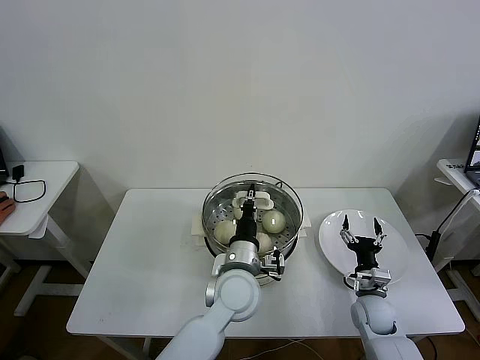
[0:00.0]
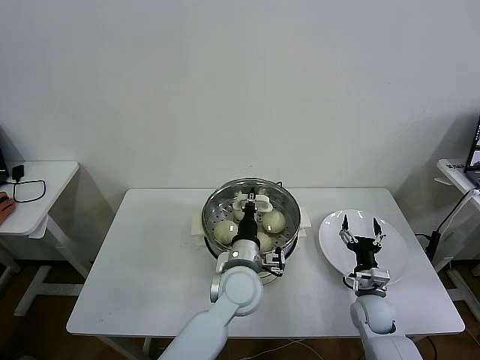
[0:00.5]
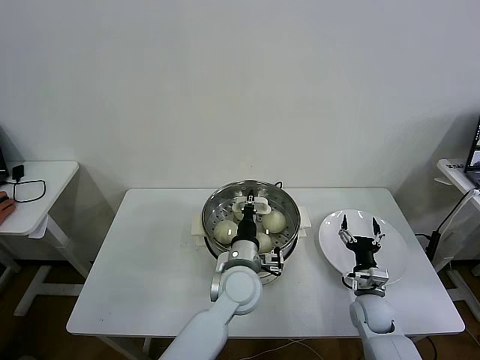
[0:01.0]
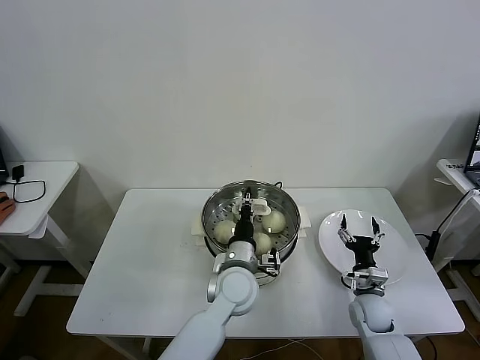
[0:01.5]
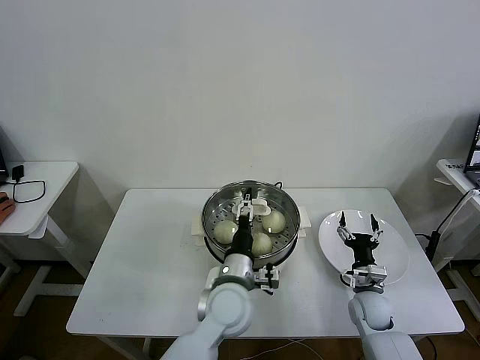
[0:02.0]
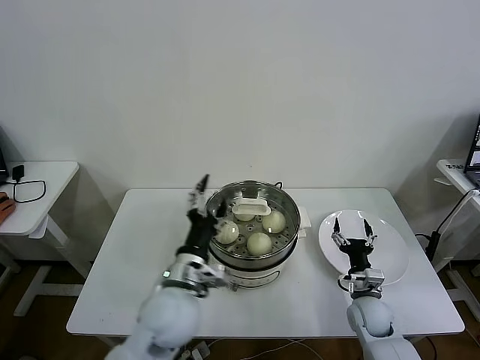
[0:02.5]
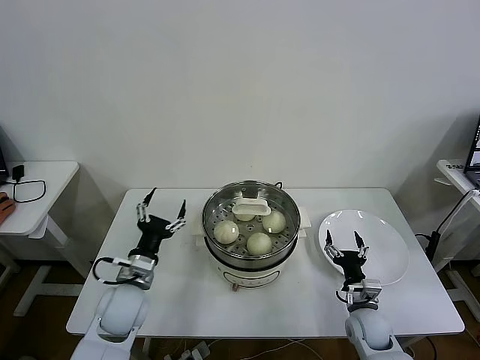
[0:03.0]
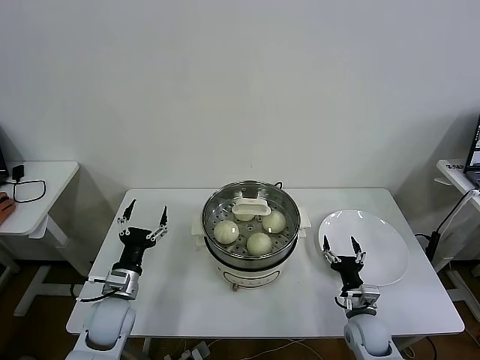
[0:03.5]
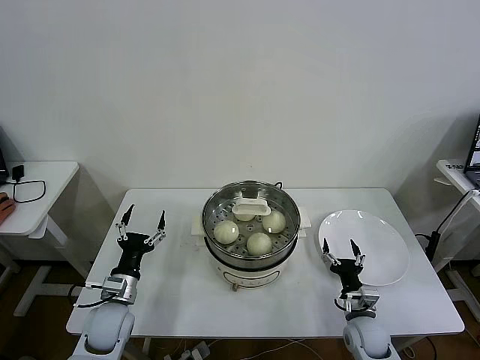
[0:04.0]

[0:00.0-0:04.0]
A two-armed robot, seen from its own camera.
Task of the whole recording: take steamed baozi put them in steamer then cover it.
0:00.0 to 0:02.0: The left gripper opens up.
0:02.0 to 0:04.0: The right gripper goes roughly 5 cm backward, while the left gripper goes approximately 25 cm to the left.

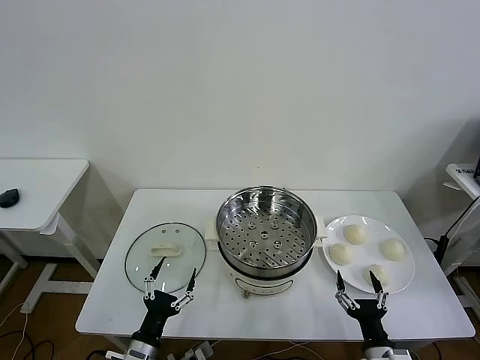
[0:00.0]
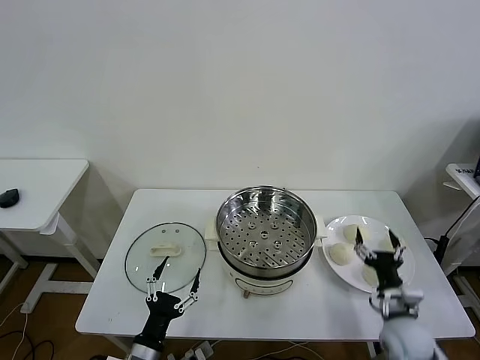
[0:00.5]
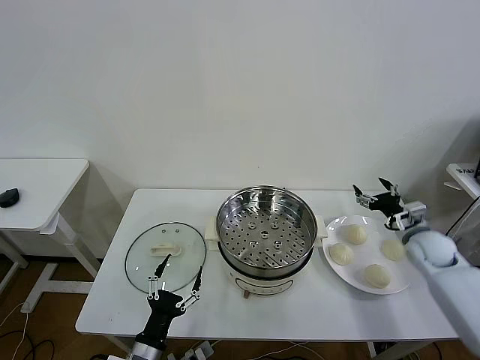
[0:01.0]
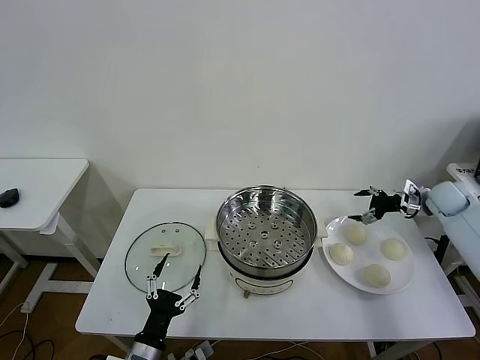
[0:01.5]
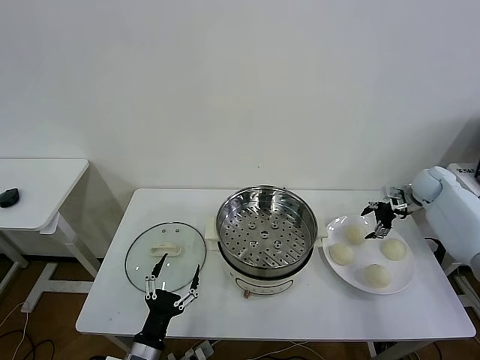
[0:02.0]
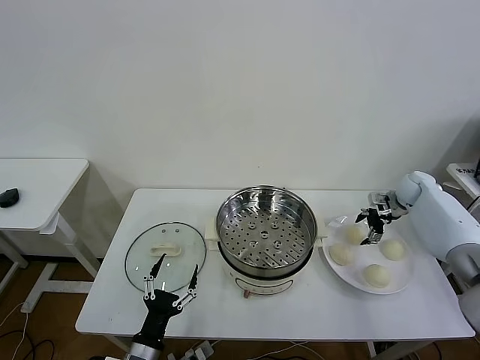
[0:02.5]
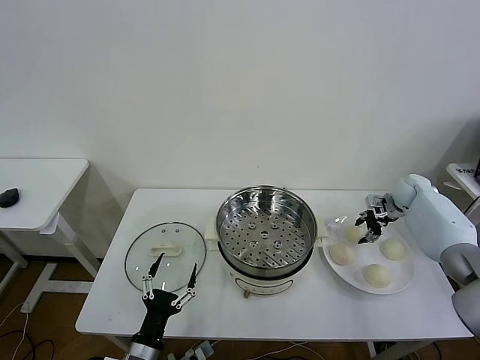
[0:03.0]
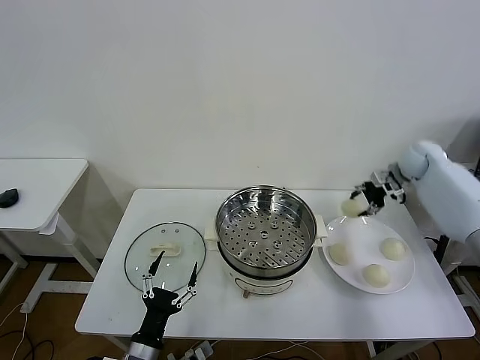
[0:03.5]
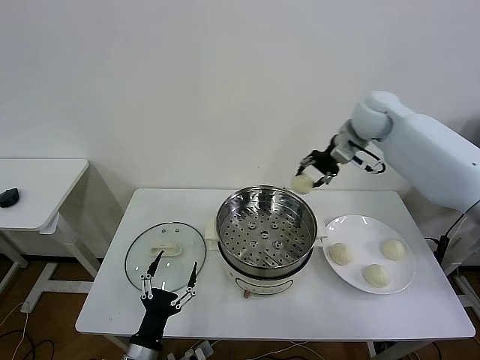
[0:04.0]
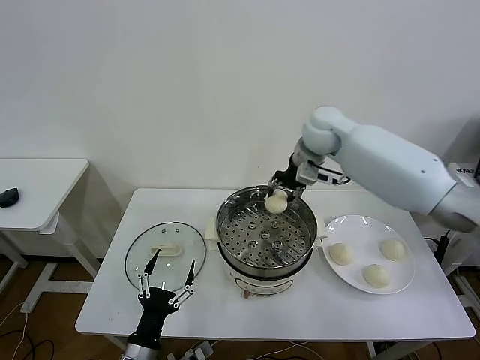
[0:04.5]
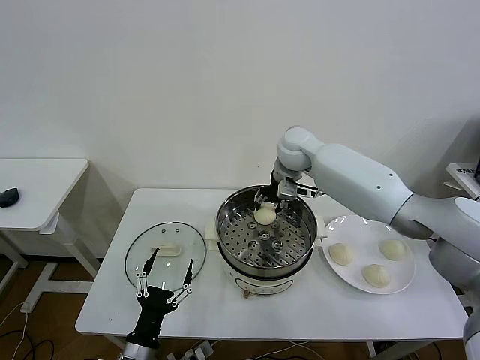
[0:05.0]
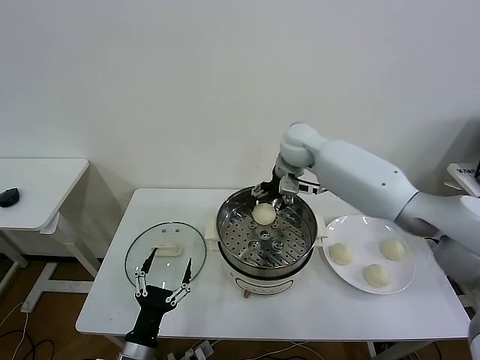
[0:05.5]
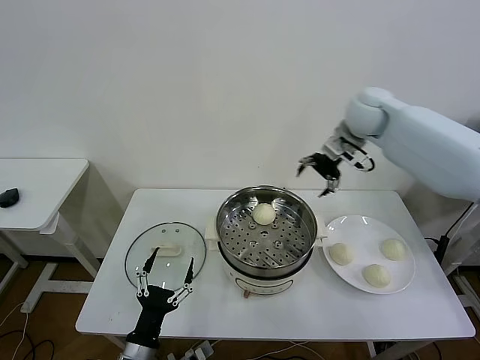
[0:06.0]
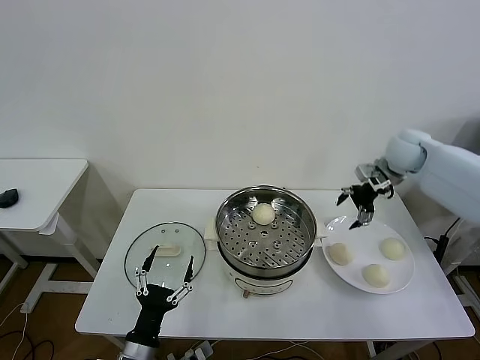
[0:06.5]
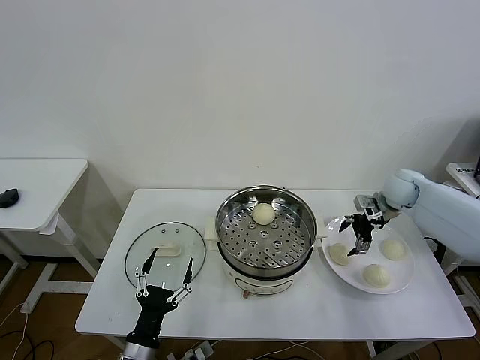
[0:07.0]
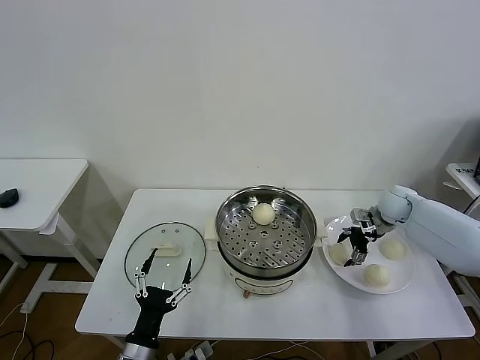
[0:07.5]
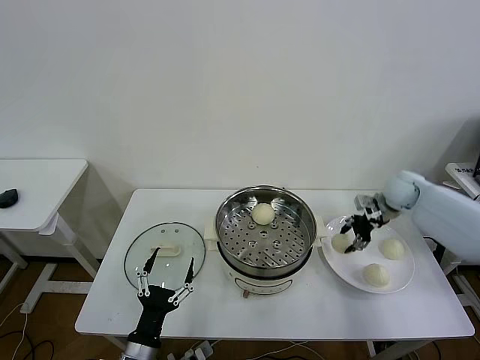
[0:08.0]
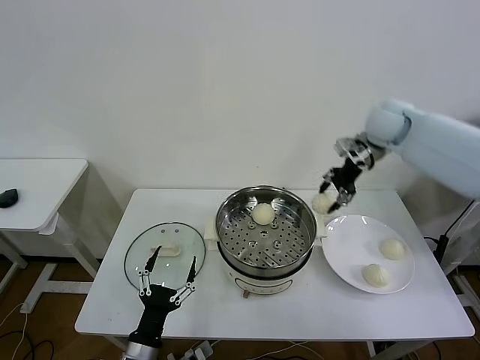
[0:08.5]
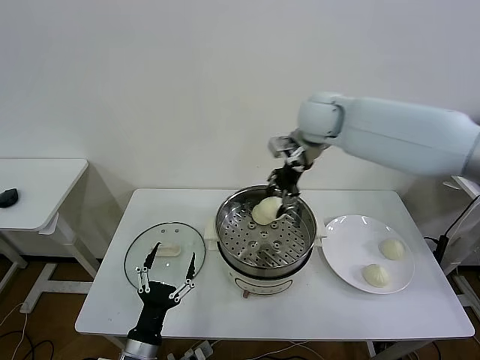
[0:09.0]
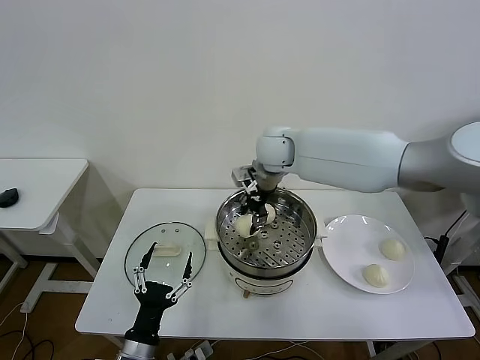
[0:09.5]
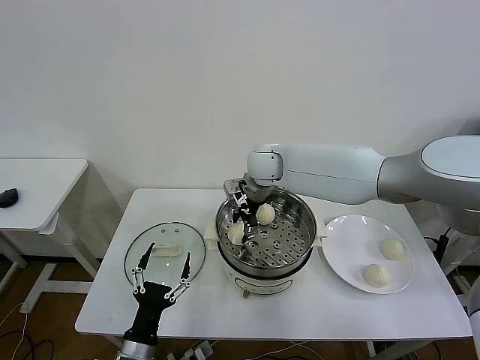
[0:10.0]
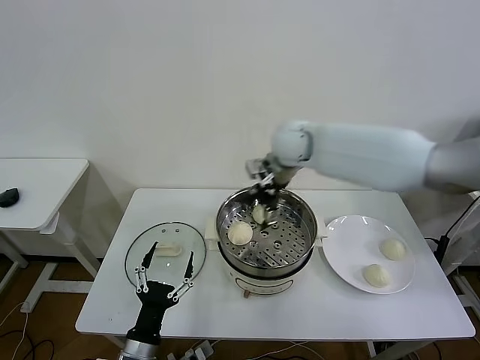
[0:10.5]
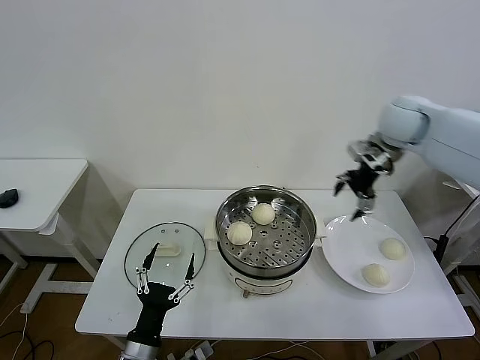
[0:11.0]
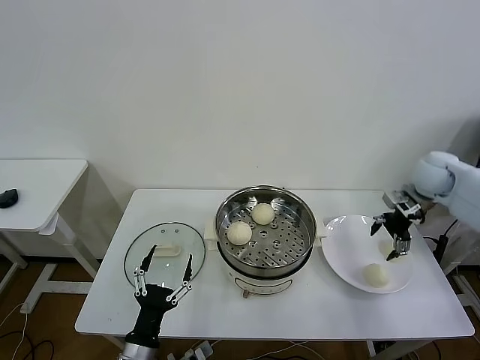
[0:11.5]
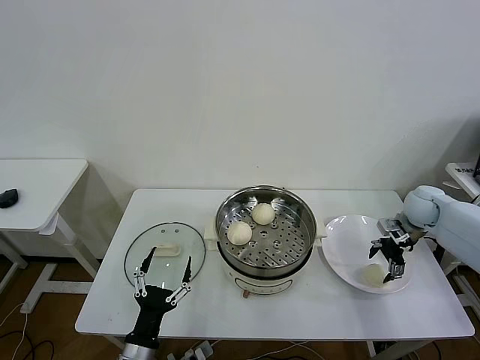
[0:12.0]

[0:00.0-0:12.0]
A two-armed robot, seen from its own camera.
Task of the whole recording: take steamed baozi put them in steamer then cover it.
Step, 0:00.0 to 0:02.5: Grasp the baozi in the plate with right gripper.
Step, 0:03.0 to 0:05.0: Place the baozi on the steamer with right gripper.
Step, 0:05.5 to 0:07.5: Grasp the baozi in the plate with right gripper.
Step, 0:08.0 to 0:10.0: Place the baozi on the steamer with right gripper.
0:02.0 to 0:04.0: The right gripper shifts about 30 cm to the left and upward, and closes its fingers.
0:04.0 to 0:06.0: The right gripper moves some 10 cm to the left and comes back, and opens up.
0:06.0 to 0:08.0: The right gripper heads downward and to the right, covering roughly 20 cm, and closes up.
0:08.0 to 0:10.0: The right gripper goes some 35 cm to the left, and opens.
0:10.0 to 0:12.0: The right gripper shifts some 40 cm to the right, and opens up.

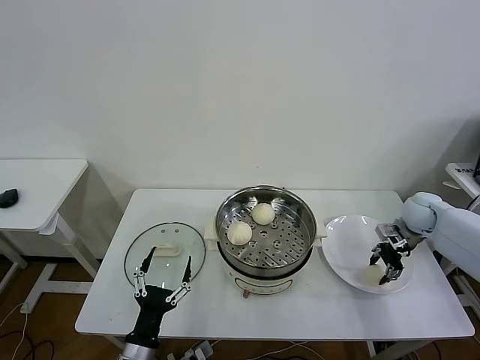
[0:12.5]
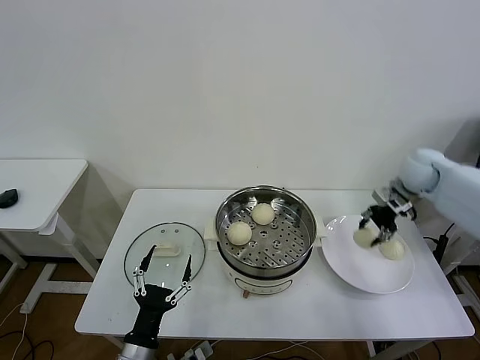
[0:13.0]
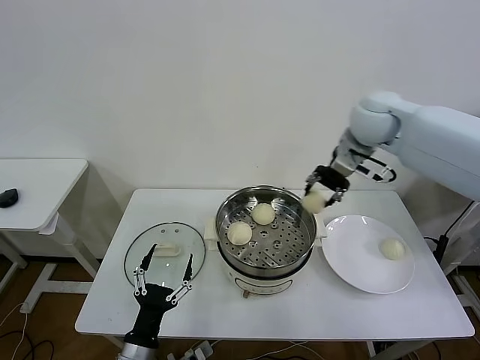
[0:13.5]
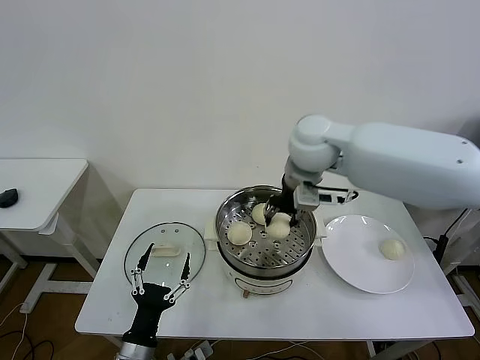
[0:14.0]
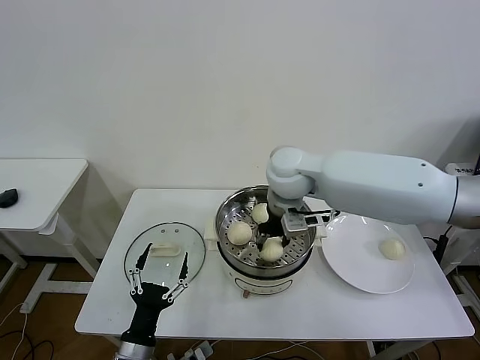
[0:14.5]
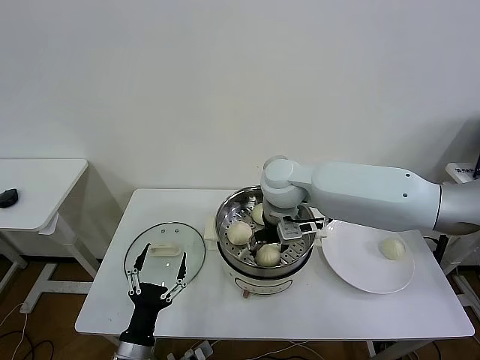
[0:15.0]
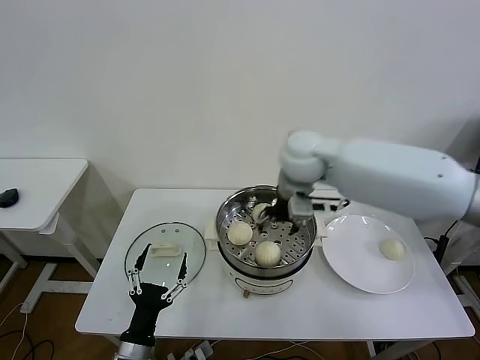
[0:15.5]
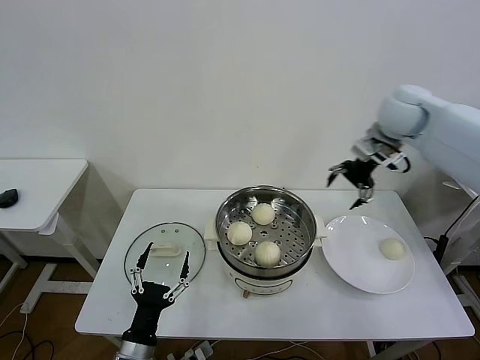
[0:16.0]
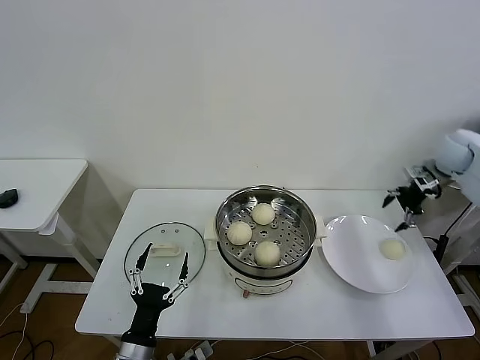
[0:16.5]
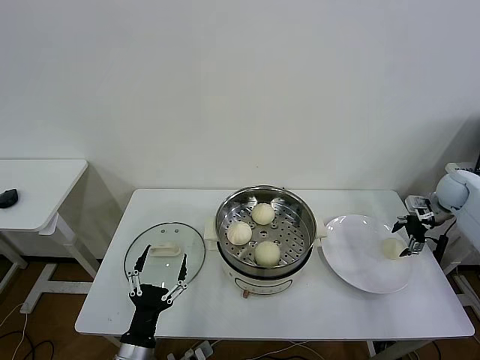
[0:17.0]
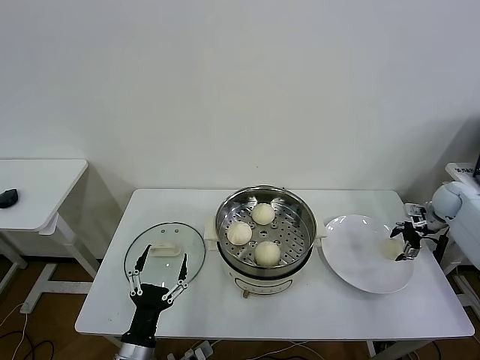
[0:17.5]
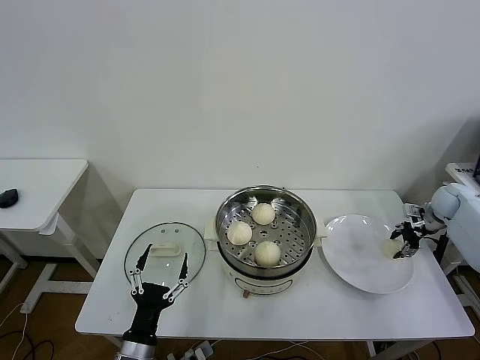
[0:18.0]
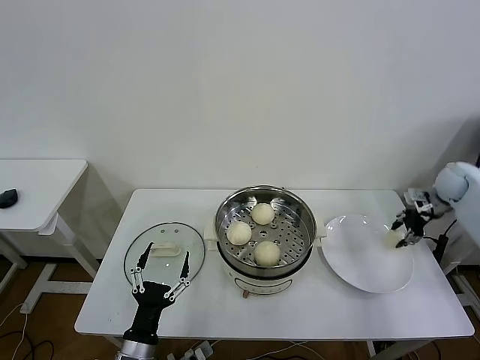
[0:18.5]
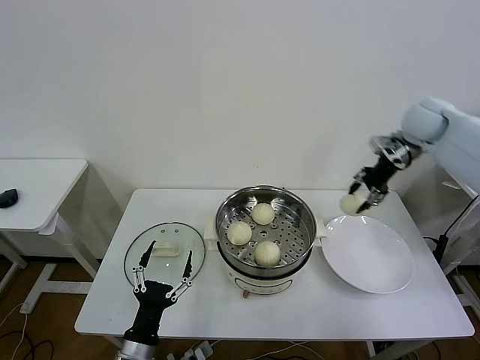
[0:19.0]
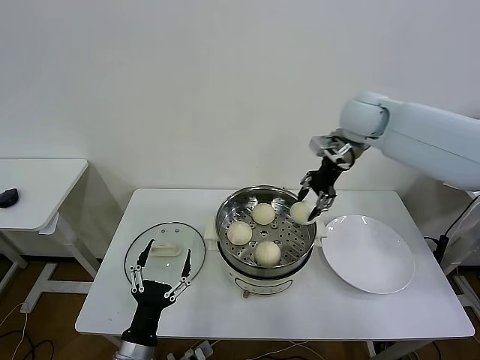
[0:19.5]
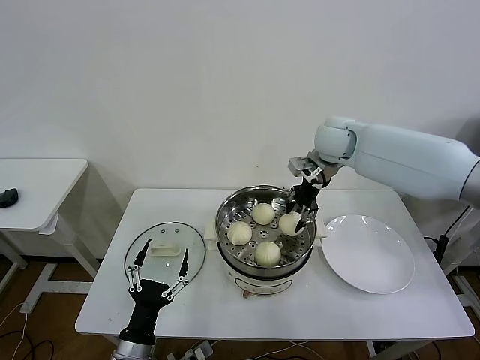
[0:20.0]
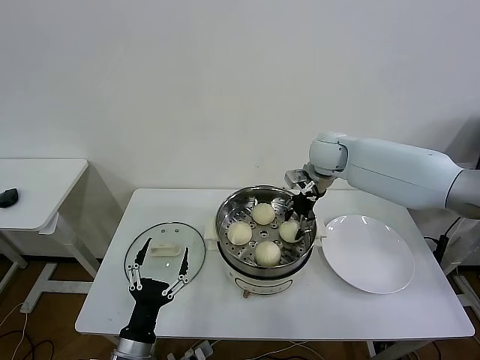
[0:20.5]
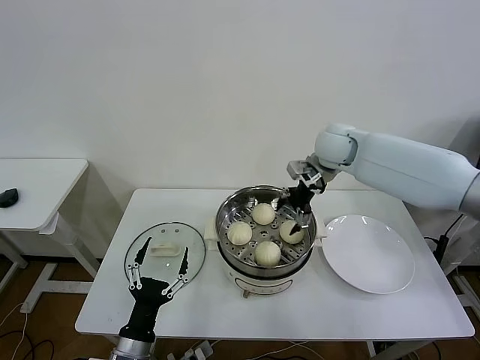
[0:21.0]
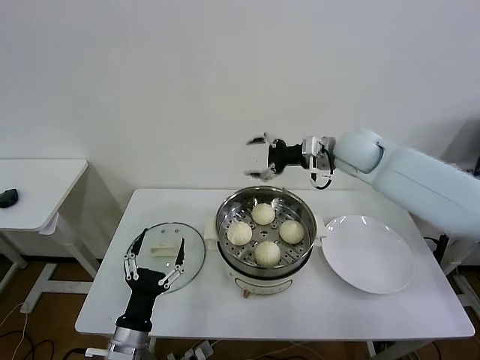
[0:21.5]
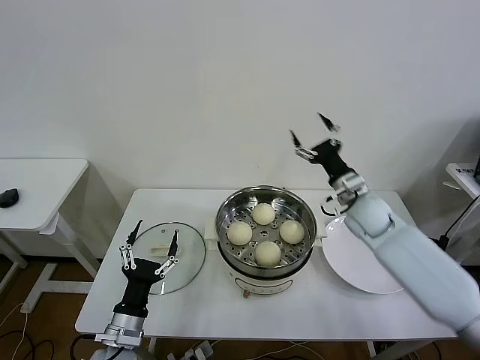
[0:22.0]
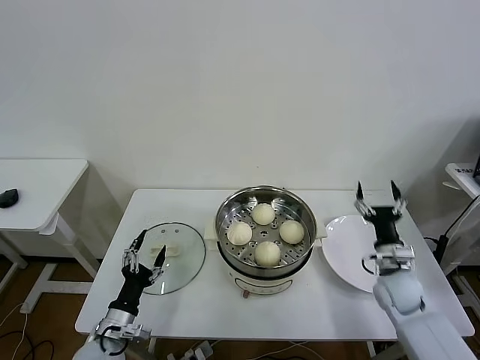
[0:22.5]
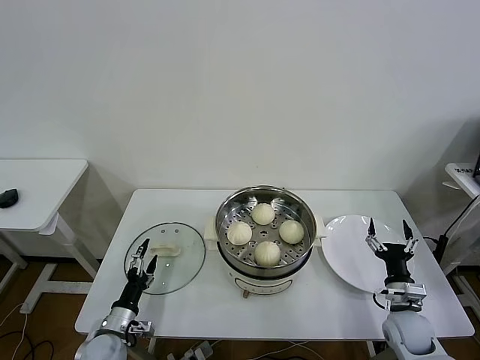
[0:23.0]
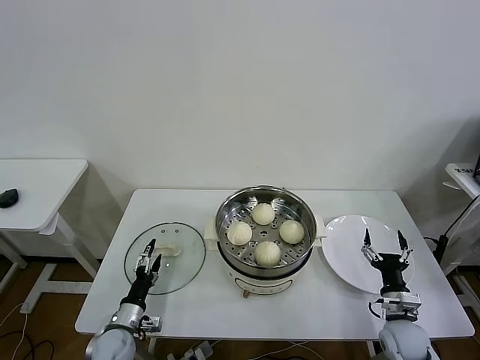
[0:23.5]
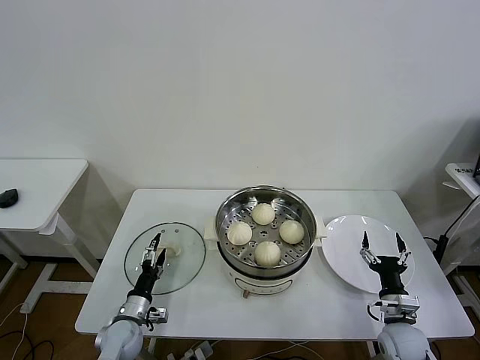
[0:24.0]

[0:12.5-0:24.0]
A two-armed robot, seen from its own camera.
Task of the whole recording: take steamed baozi put them in steamer then cover it.
Step, 0:13.0 to 0:15.0: Place the baozi on the steamer with right gripper.
Step, 0:15.5 to 0:17.5: Grasp the baozi in the plate with right gripper.
Step, 0:18.0 to 0:20.5: Place the baozi on the steamer with right gripper.
0:12.5 to 0:14.5: The right gripper is displaced to the left and upward by some 40 cm.
0:14.5 to 0:16.5: The right gripper goes about 40 cm to the right, and opens its fingers.
0:16.5 to 0:18.5: The right gripper moves downward, about 5 cm, and closes.
0:18.5 to 0:20.0: The right gripper heads to the left, covering some 35 cm.
0:20.0 to 0:22.0: The right gripper is displaced downward, backward and to the right by about 20 cm, and opens, while the left gripper ends up about 5 cm from where it was.
0:22.0 to 0:24.0: The left gripper shifts about 15 cm downward, forward and to the left. Meanwhile the right gripper is displaced backward and downward by roughly 30 cm.
